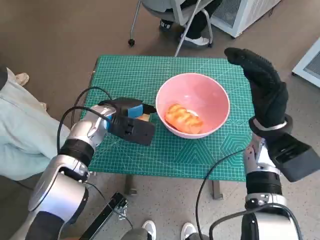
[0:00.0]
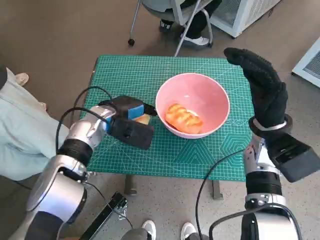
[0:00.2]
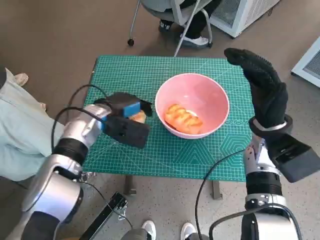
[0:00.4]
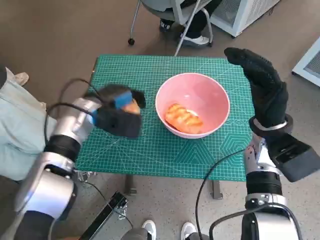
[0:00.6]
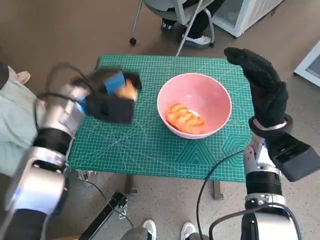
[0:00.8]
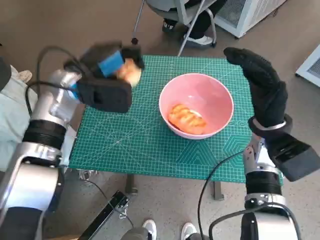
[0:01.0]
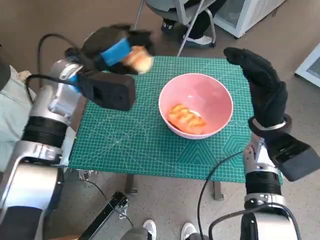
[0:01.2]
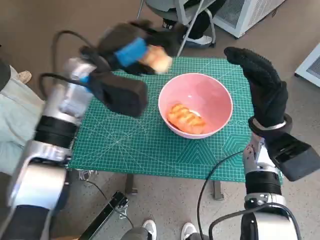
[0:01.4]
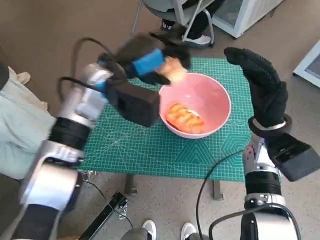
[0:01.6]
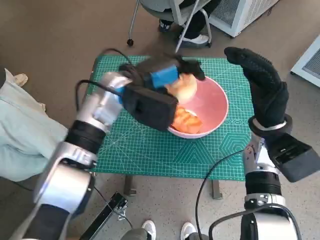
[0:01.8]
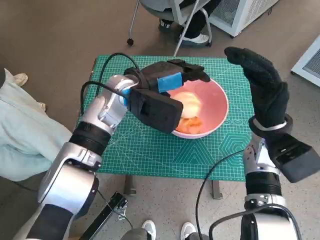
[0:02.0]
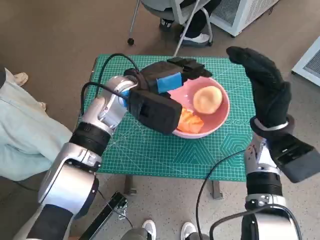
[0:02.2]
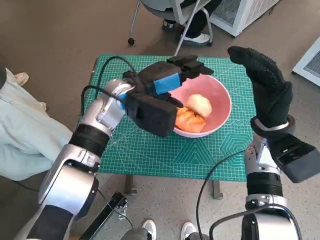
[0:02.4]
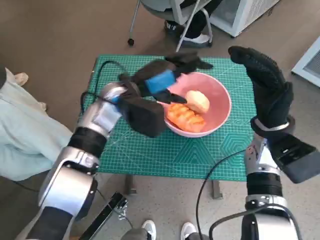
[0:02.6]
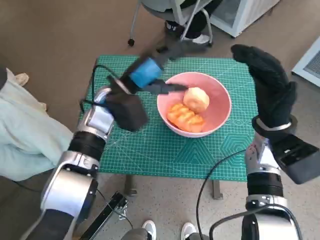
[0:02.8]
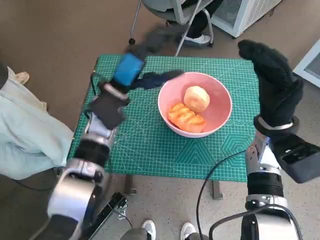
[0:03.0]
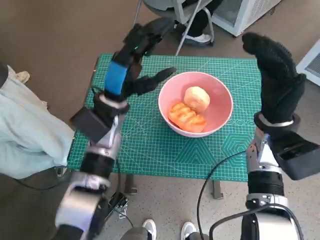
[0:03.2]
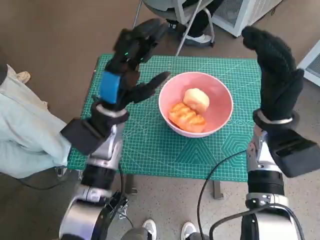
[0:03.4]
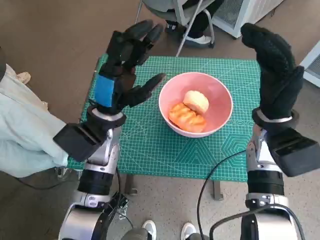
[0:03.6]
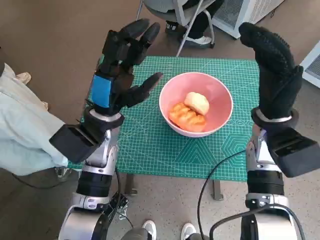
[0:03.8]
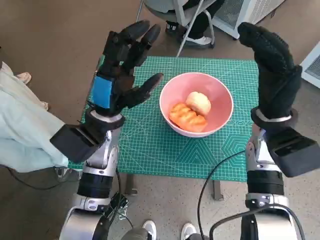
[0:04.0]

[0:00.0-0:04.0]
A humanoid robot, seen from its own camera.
Task of the whole recording: Push the bowl to the center of the table and put the bread into the bowl.
Step, 0:00.4 to 0:01.8: Place the round bread in pink bowl with left hand.
0:00.0 to 0:01.4: The left hand shifts roughly 15 cm upward.
0:01.4 to 0:02.6: The left hand is displaced downward by about 5 cm.
0:02.6 to 0:04.0: The left hand travels backward by approximately 5 cm.

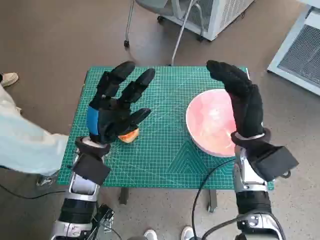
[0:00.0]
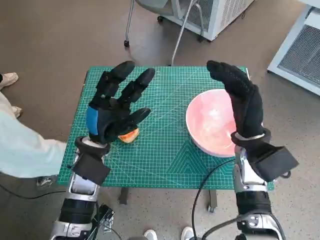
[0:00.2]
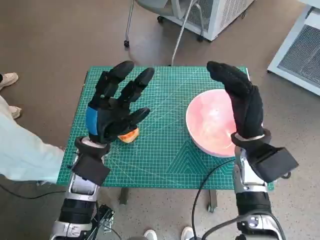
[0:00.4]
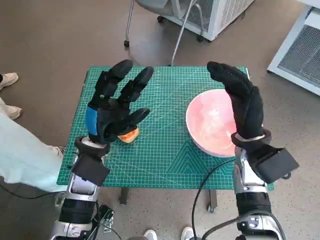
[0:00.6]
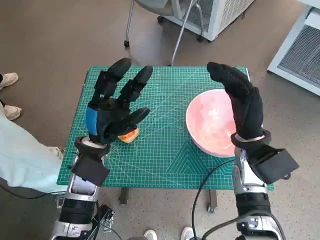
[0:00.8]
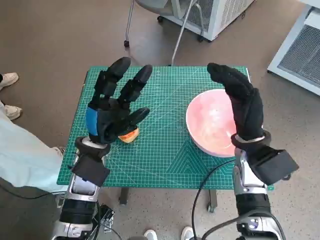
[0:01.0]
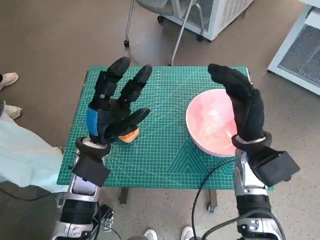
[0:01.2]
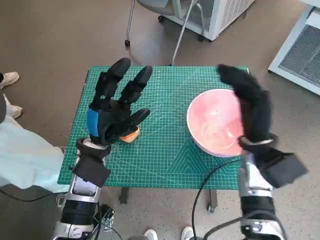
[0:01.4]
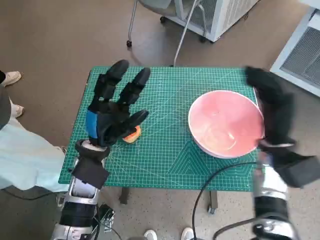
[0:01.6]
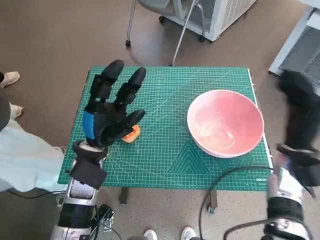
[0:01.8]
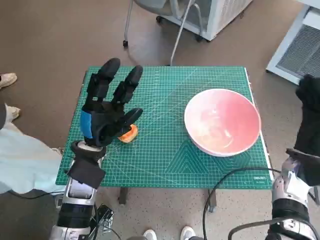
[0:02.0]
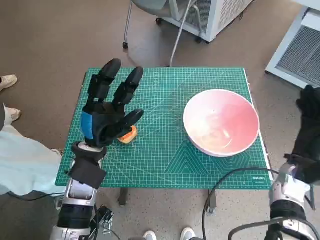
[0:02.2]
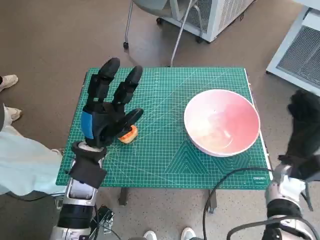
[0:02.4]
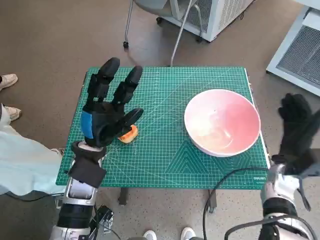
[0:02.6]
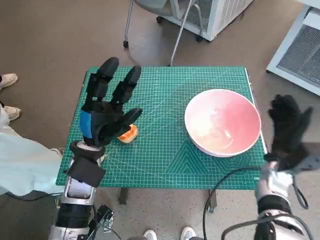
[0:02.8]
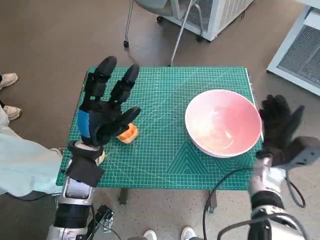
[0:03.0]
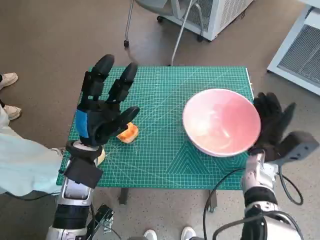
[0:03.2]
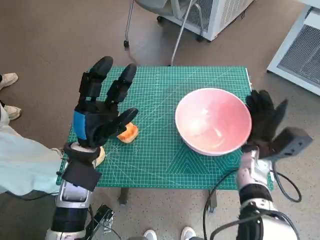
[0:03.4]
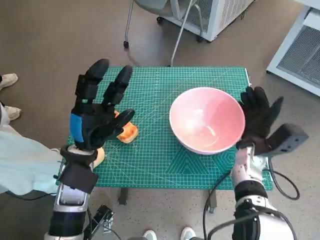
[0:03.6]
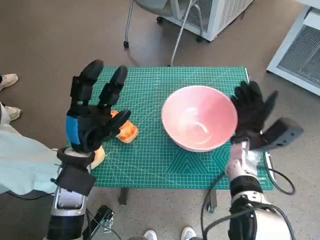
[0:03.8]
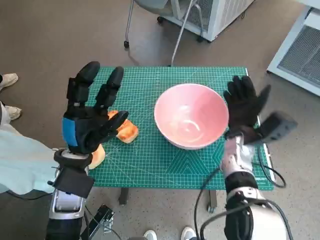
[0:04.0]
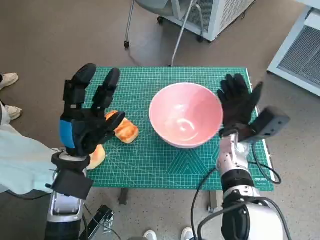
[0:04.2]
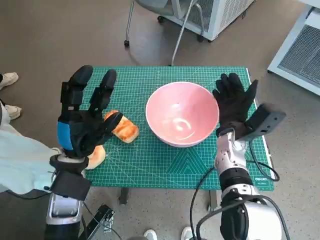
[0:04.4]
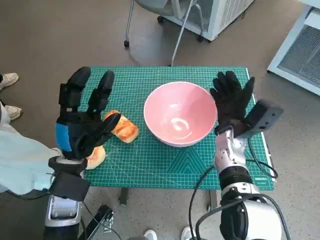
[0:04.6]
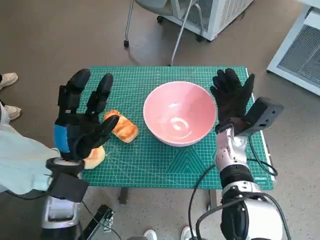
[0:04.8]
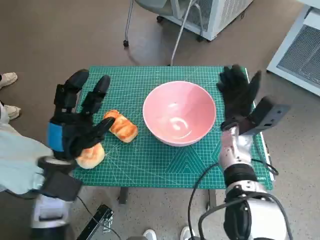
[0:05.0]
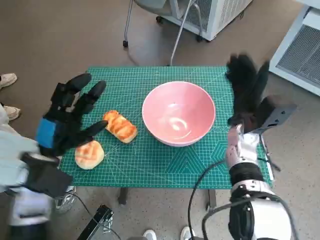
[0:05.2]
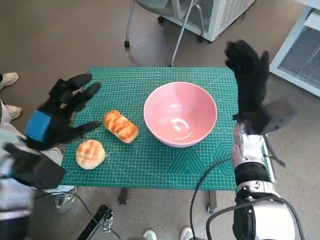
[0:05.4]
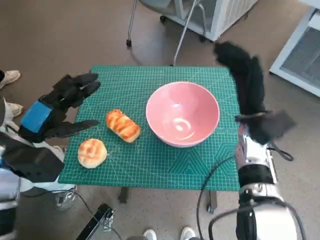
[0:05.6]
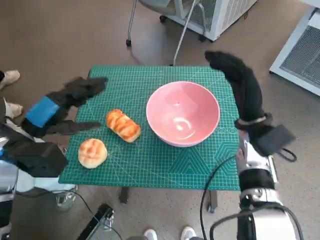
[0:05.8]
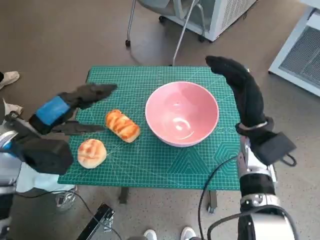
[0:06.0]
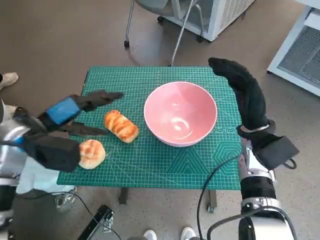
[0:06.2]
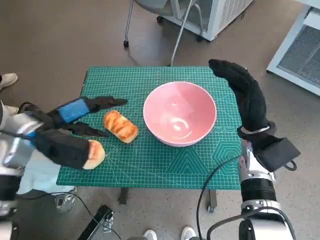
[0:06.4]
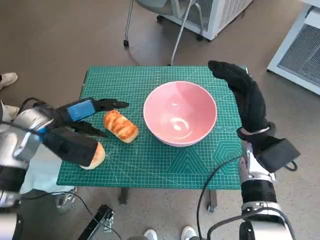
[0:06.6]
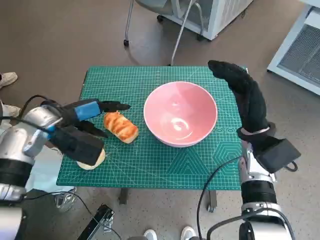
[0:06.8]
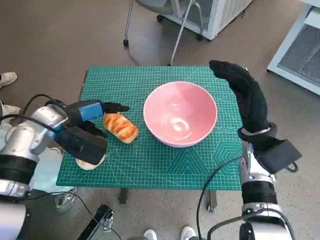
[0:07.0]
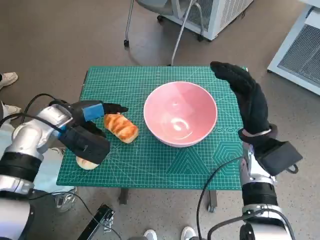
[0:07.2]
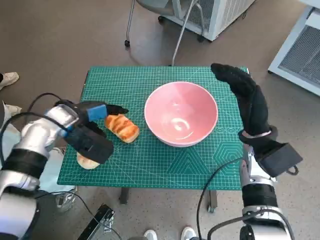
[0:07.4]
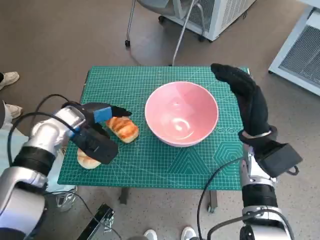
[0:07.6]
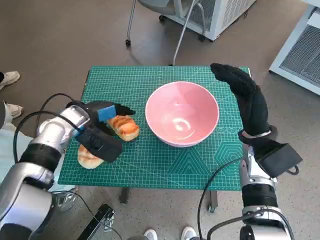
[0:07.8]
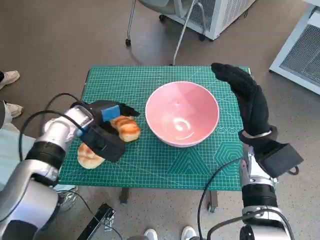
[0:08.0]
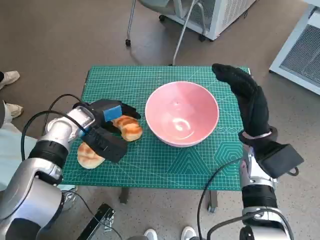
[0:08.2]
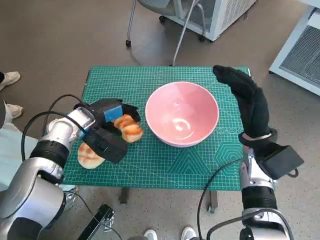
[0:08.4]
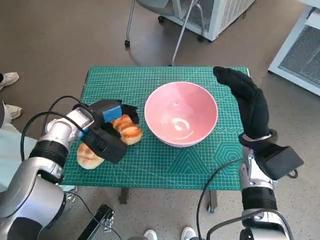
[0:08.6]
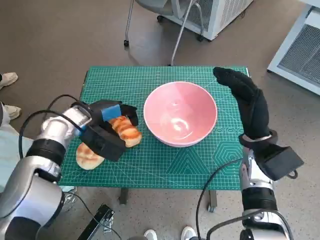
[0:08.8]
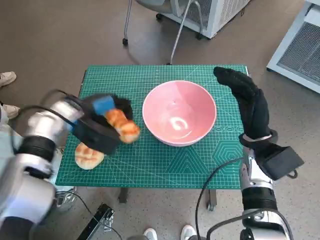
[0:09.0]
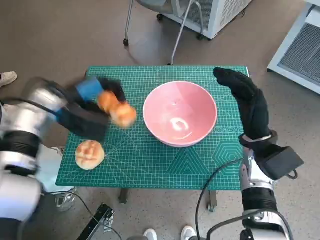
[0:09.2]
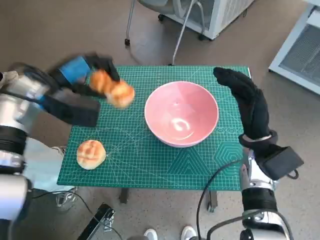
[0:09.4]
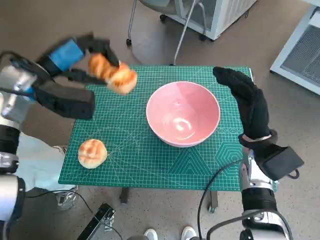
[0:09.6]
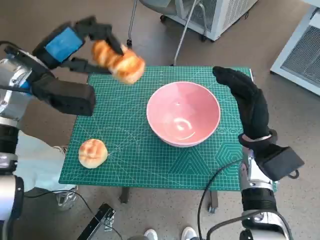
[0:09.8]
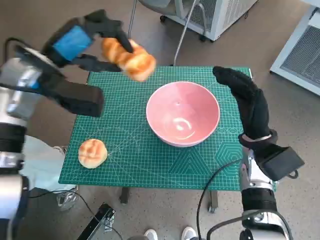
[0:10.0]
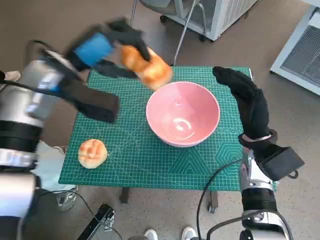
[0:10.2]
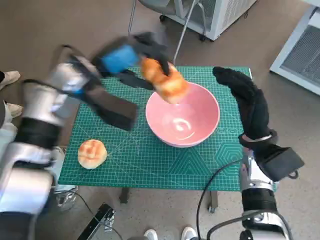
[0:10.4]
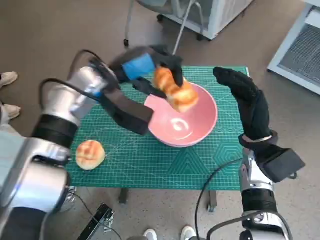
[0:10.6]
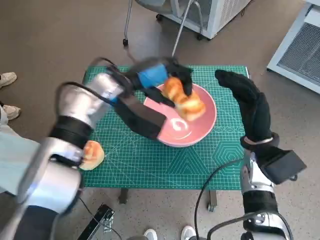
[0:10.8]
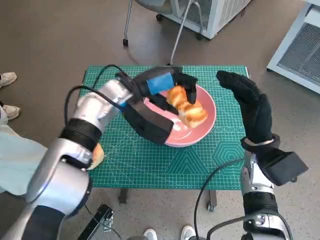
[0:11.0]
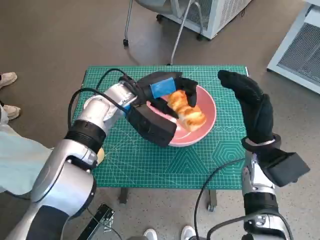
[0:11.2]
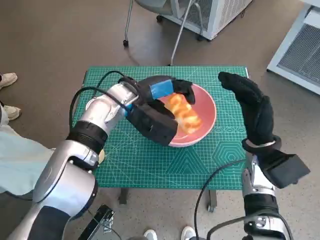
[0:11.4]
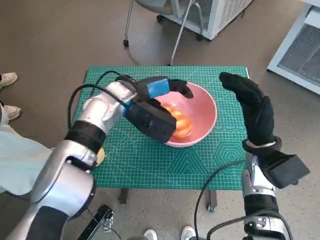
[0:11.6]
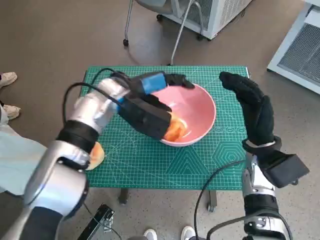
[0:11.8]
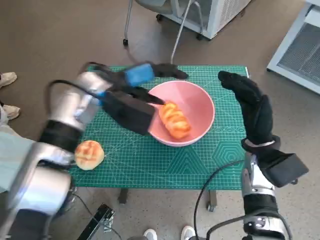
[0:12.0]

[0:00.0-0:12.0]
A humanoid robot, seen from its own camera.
Task of the whole recording: Push the bowl to the center of the table and put the bread into the bowl.
Step, 0:00.0 to 0:04.8: Move the pink bowl to the center of table with right hand.
Step, 0:05.2 to 0:08.4: Grasp the long bread with left hand.
Step, 0:08.6 to 0:12.0: Place the long bread in pink bowl with left hand.
0:01.6 to 0:03.0: The right hand shifts about 5 cm downward.
0:03.0 to 0:04.4: The right hand travels to the left by some 10 cm.
0:04.4 to 0:06.0: The right hand heads upward, covering about 5 cm. Meanwhile the left hand goes approximately 10 cm to the left and upward.
0:06.0 to 0:07.6: The left hand moves forward and to the right, roughly 10 cm.
0:07.6 to 0:09.0: There are only small adjustments of the hands.
0:09.0 to 0:10.4: The left hand goes roughly 10 cm upward and to the right.

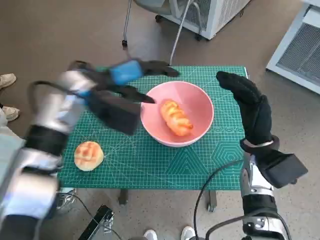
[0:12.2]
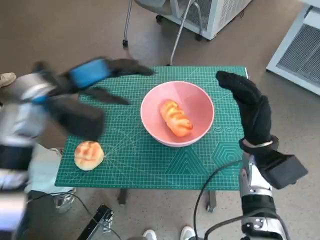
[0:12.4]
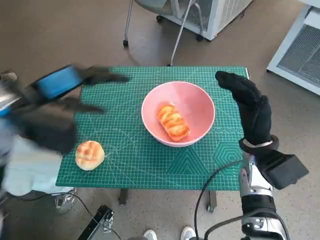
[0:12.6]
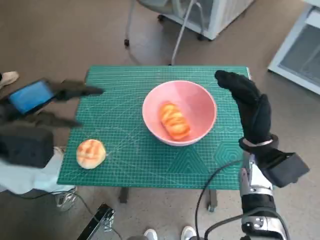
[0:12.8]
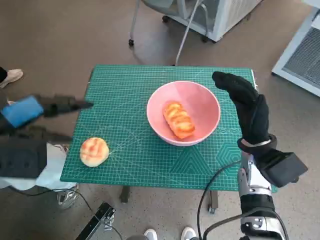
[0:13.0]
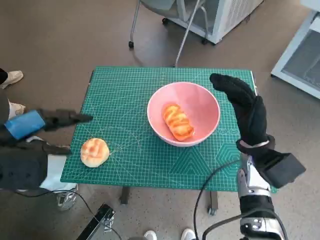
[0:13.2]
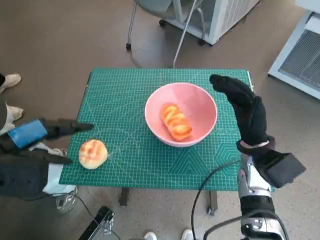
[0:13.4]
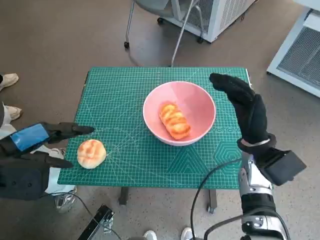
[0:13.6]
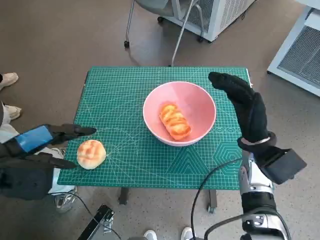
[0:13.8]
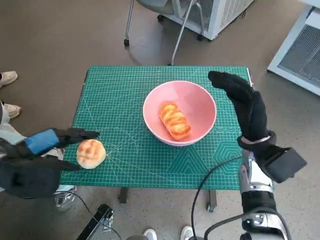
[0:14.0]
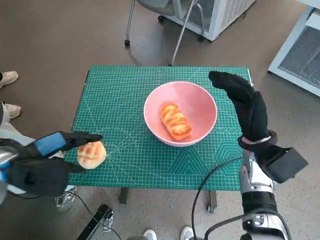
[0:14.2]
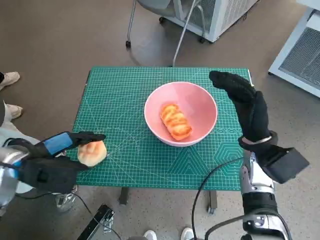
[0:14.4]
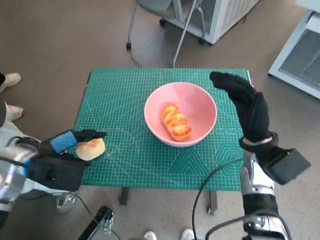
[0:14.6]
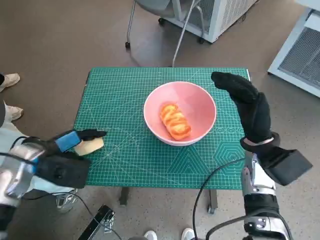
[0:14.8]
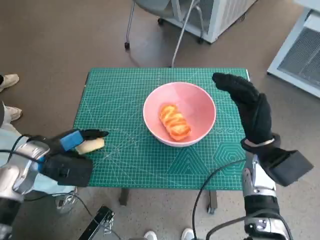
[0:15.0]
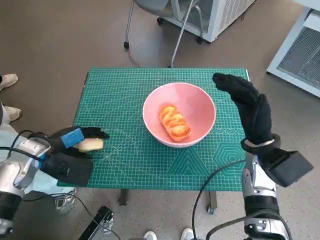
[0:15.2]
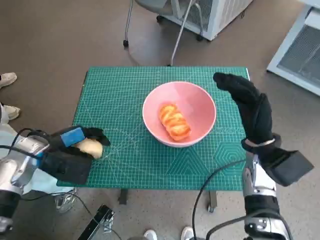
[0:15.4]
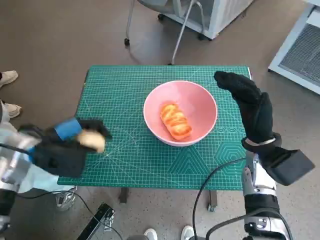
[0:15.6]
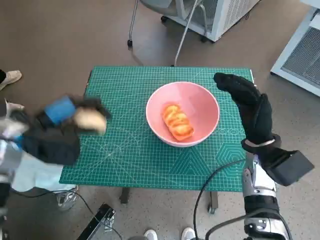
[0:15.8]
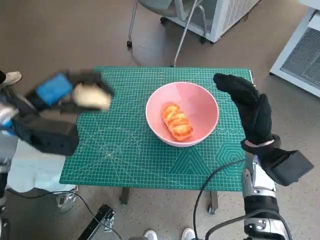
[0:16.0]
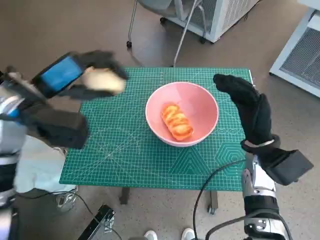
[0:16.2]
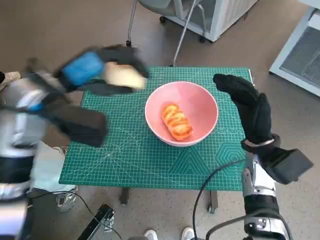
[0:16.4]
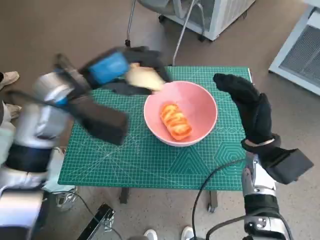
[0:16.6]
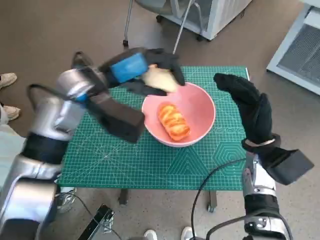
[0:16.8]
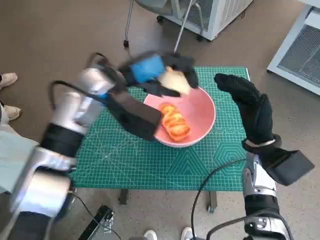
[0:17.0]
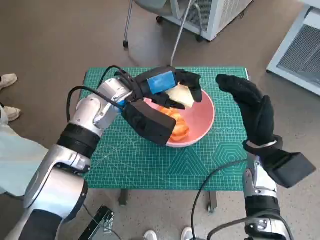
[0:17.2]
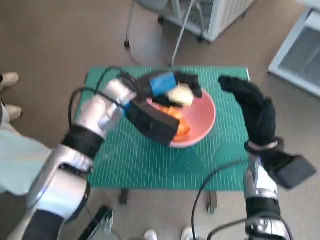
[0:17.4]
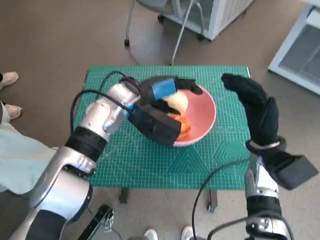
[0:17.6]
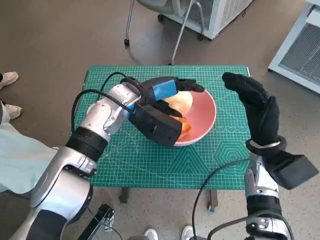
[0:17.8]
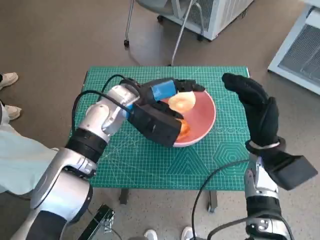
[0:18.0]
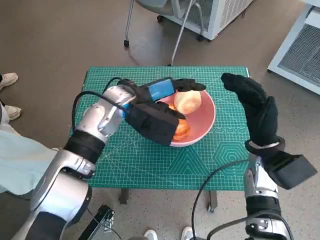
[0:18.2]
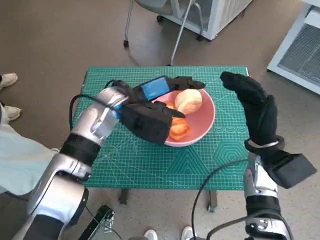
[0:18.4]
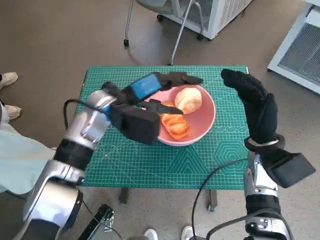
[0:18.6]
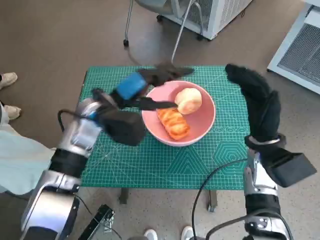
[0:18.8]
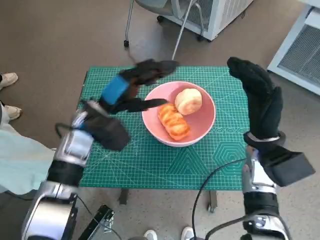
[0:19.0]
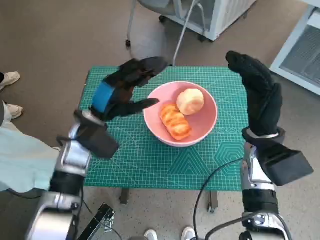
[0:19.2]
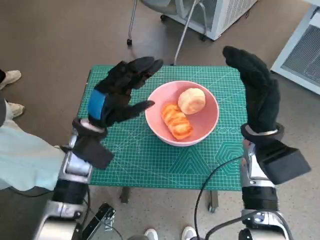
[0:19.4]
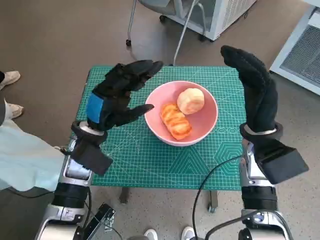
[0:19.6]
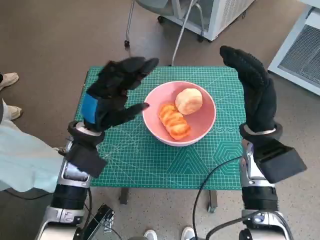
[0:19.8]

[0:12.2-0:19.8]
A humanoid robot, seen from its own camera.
Task of the whole recording: Push the bowl to the center of the table and put the bread into the bowl.
Step, 0:12.2 to 0:15.0: Grasp the round bread with left hand.
Step, 0:15.2 to 0:18.2: Place the round bread in pink bowl with left hand.
0:12.2 to 0:13.8: The left hand goes about 20 cm to the left and backward.
0:13.8 to 0:15.2: The left hand travels downward and forward by approximately 10 cm.
0:15.2 to 0:16.8: The left hand travels to the right, upward and forward by about 20 cm.
0:16.8 to 0:18.2: The left hand is displaced downward by about 5 cm.
0:18.2 to 0:19.8: The left hand is displaced to the left and backward by roughly 10 cm.
